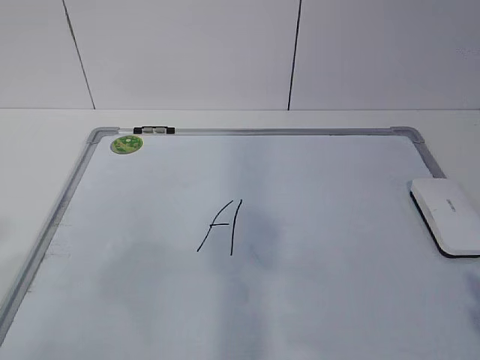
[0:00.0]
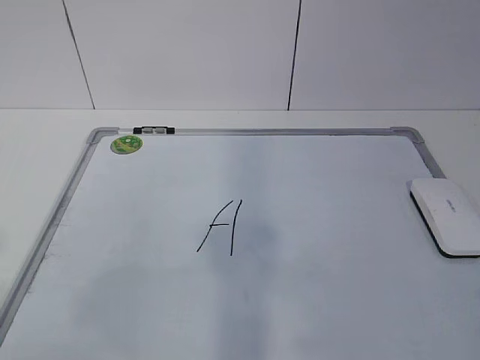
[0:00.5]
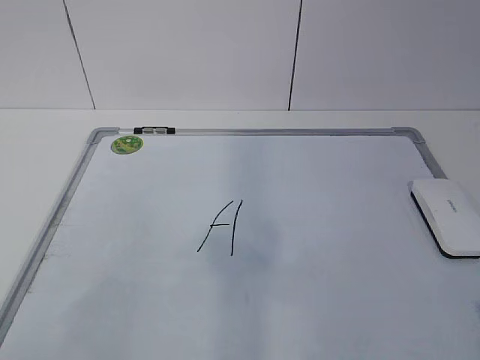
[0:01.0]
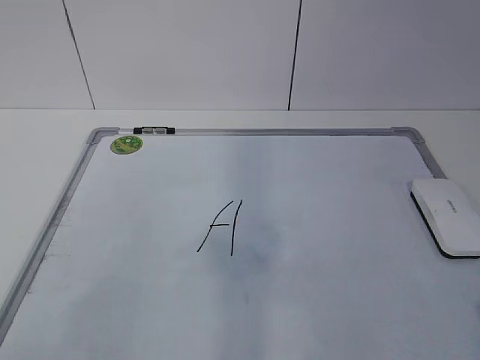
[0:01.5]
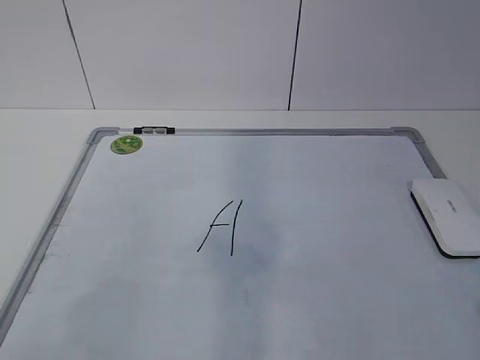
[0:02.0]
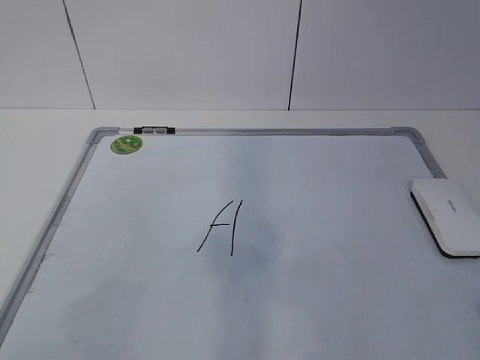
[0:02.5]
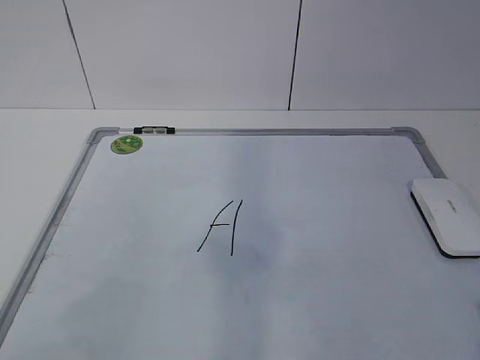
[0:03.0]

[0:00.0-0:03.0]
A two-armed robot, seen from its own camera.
Task of the whole recording: pick up the eraser on the blackboard and erase the letter "a".
0:01.5 to 0:03.0: Neither gripper changes place.

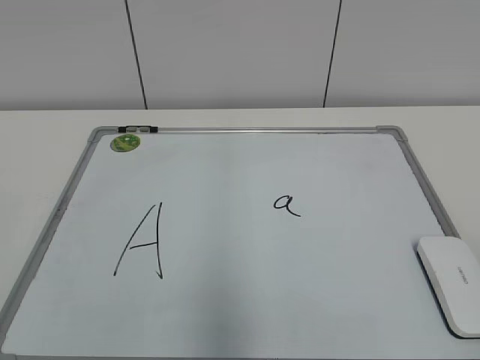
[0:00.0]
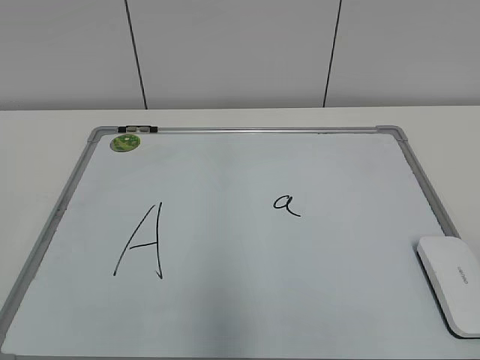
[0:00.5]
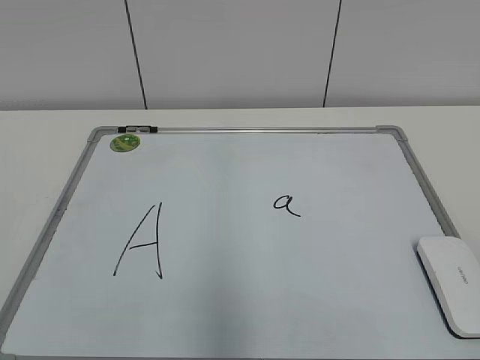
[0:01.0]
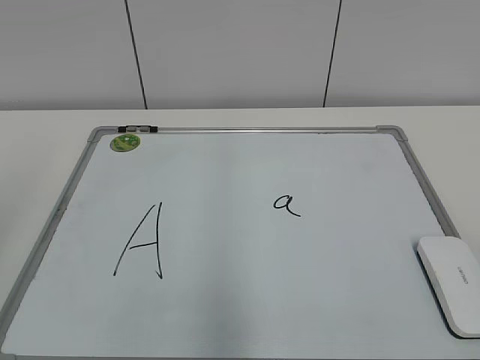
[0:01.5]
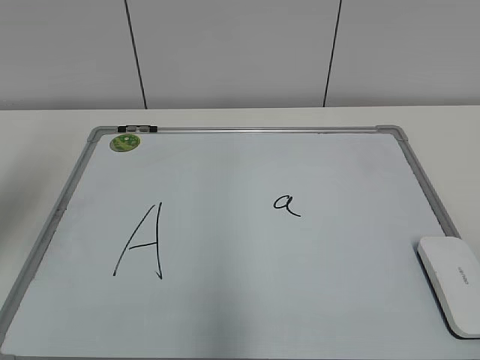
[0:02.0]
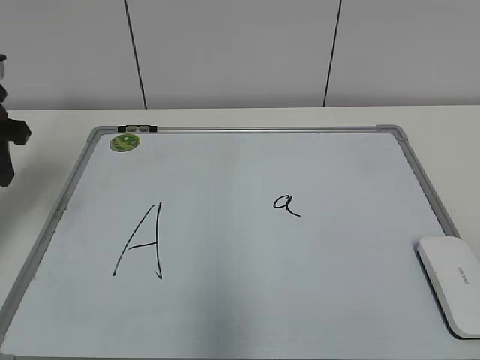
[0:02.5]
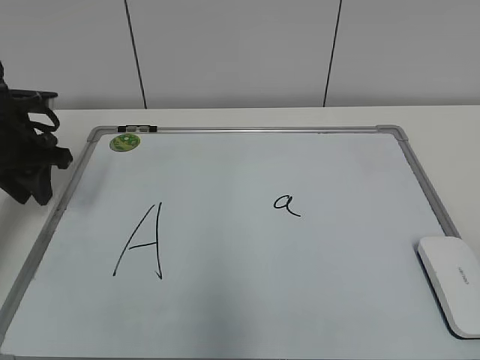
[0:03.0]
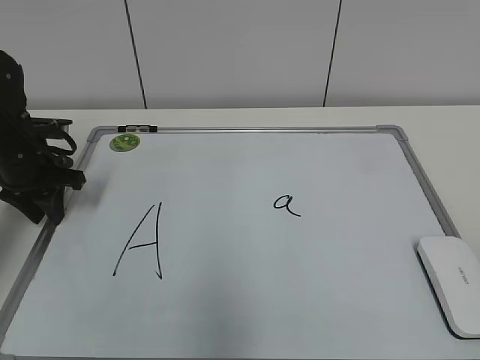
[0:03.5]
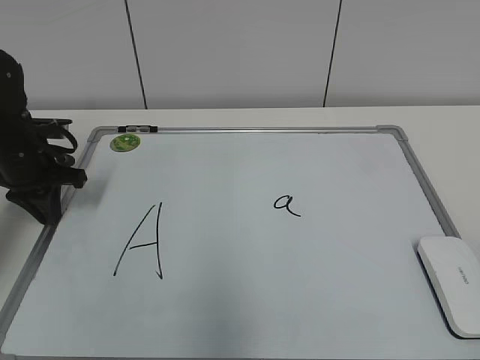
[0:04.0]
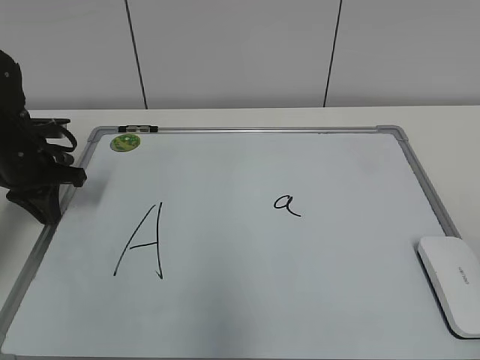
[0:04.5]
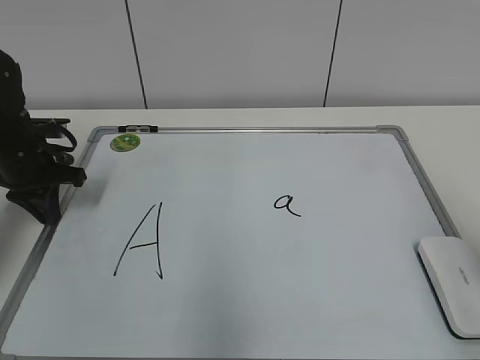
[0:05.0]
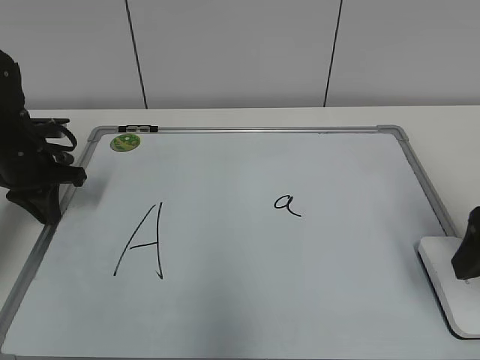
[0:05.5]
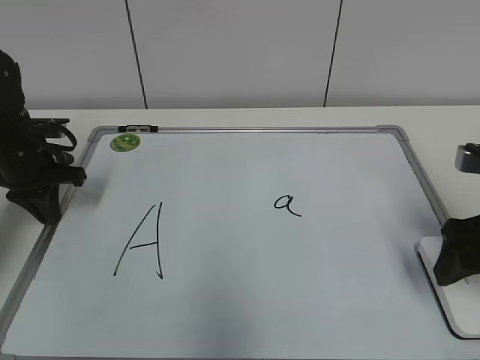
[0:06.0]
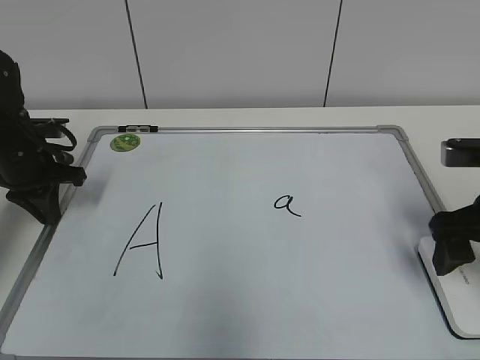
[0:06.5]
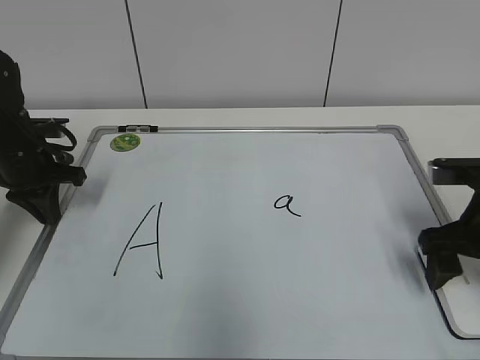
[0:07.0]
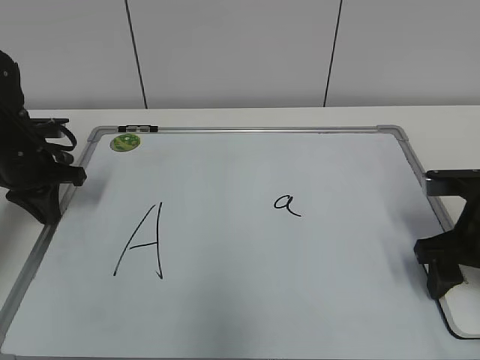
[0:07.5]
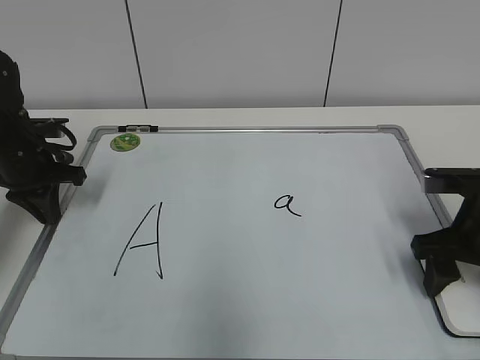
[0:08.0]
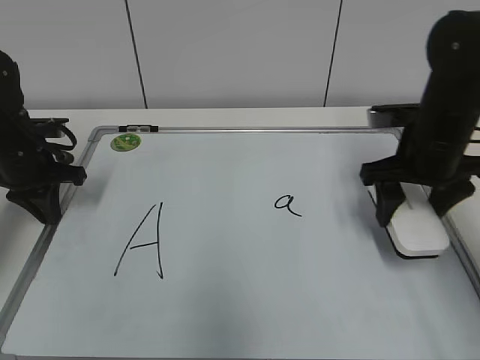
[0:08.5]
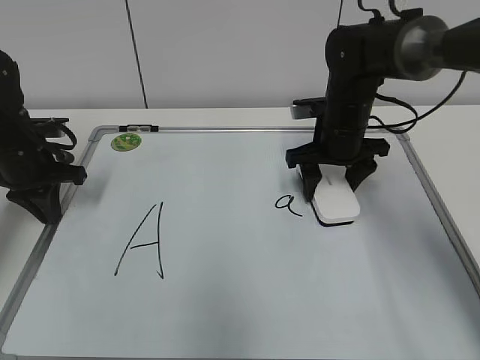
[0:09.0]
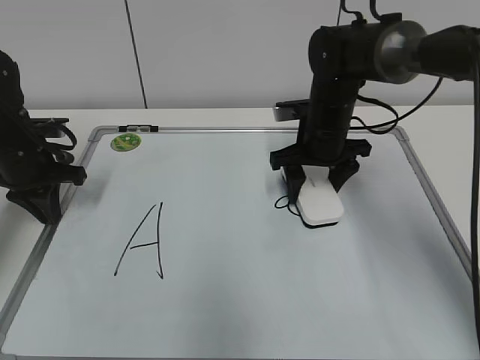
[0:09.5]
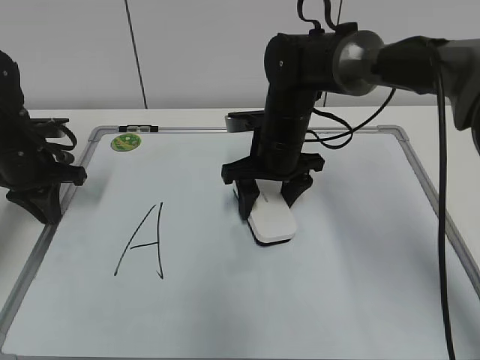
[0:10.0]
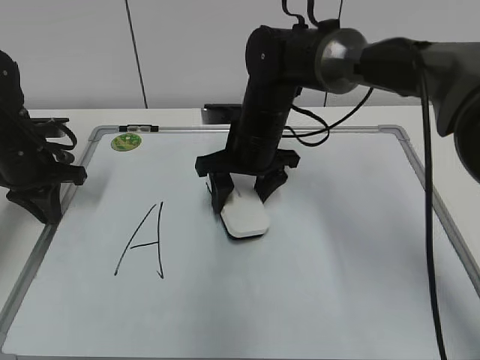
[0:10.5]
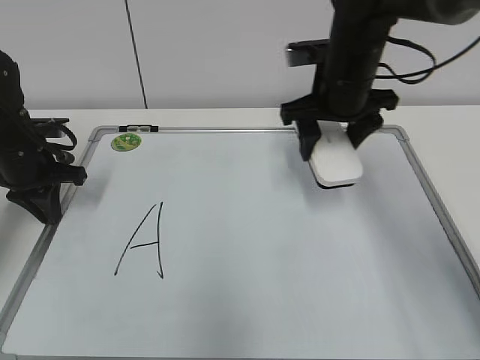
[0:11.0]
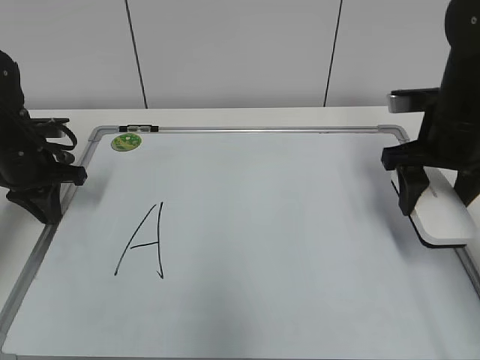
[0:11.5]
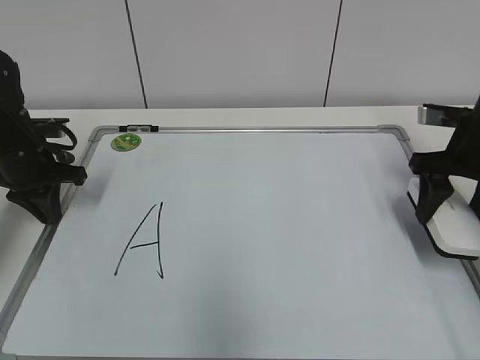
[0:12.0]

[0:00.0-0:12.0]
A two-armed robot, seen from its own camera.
Task of the whole recording: pick up the eraser on the blackboard and erase the letter "a".
Step, 0:00.0 to 0:04.5: Hold the drawing board steady with your left hand.
Step, 0:05.0 to 0:07.5: Grab the eraser with your right hand.
Step, 0:08.0 to 0:10.0: Erase the letter a with your right hand.
0:02.0 to 0:04.0: The left gripper heads downward and forward, covering roughly 20 cm.
0:04.0 to 0:06.0: The right gripper travels forward by approximately 25 cm, and opens.
0:06.0 to 0:08.0: The right gripper changes place by some 5 cm, and closes up.
0:08.0 to 0:10.0: The right gripper travels to the left and forward by some 25 cm.
0:10.0 to 0:12.0: The right gripper is displaced to the right by some 20 cm.

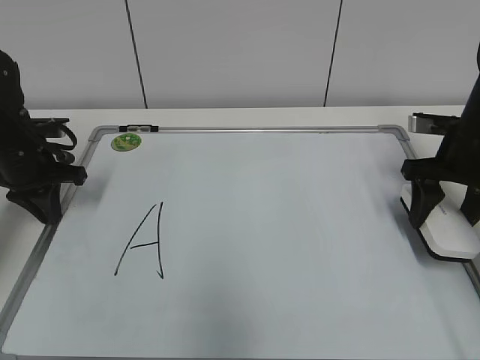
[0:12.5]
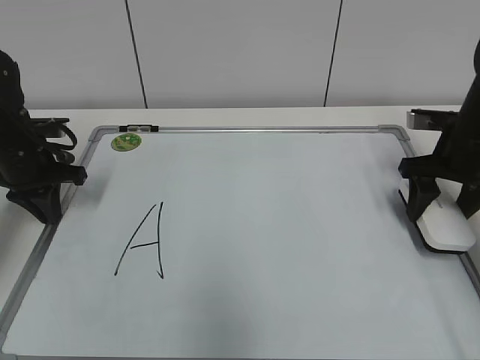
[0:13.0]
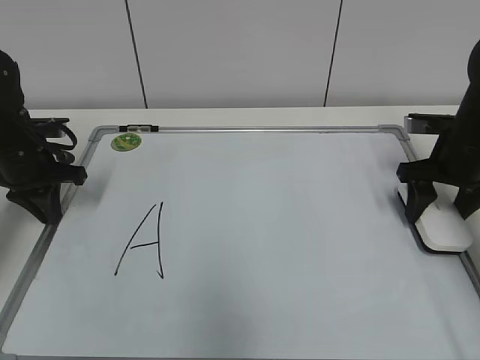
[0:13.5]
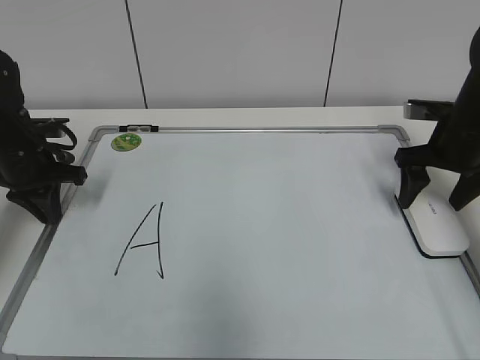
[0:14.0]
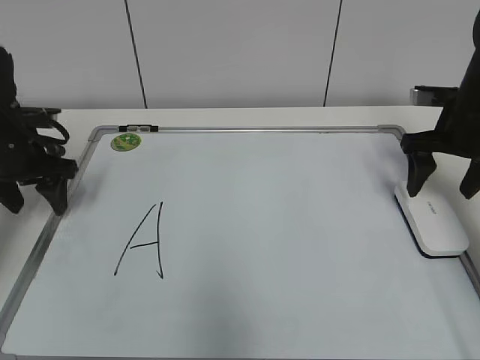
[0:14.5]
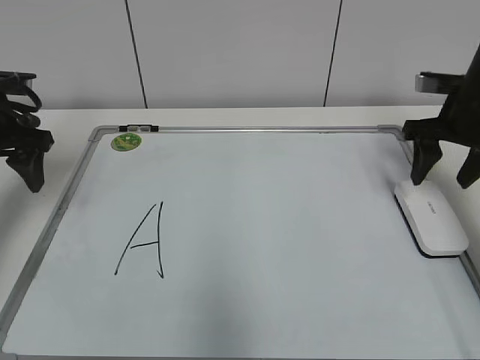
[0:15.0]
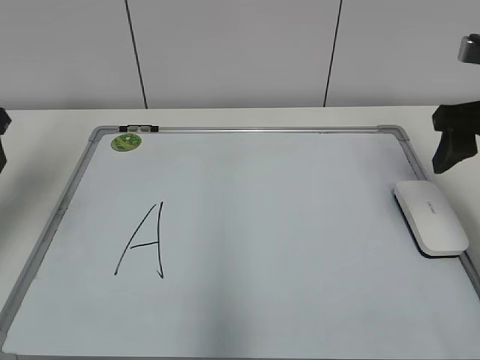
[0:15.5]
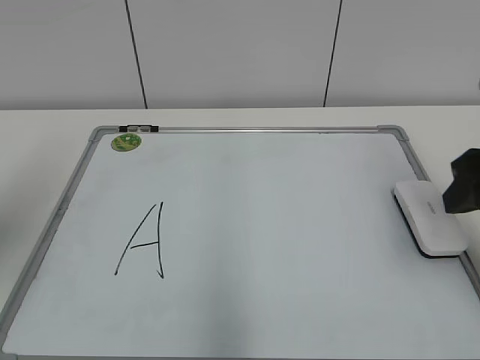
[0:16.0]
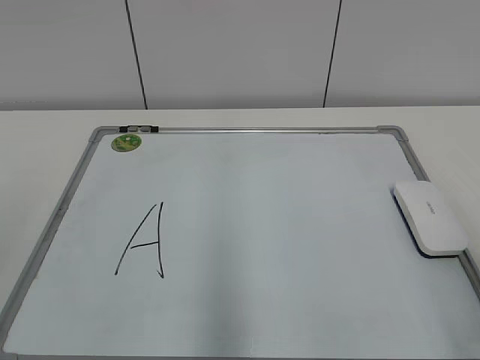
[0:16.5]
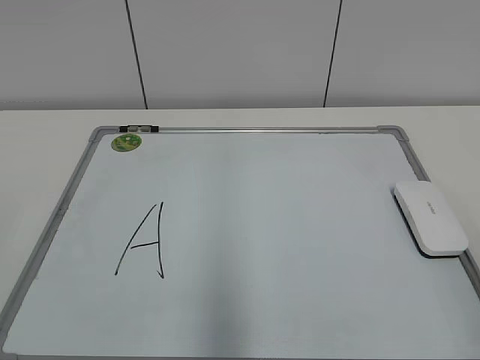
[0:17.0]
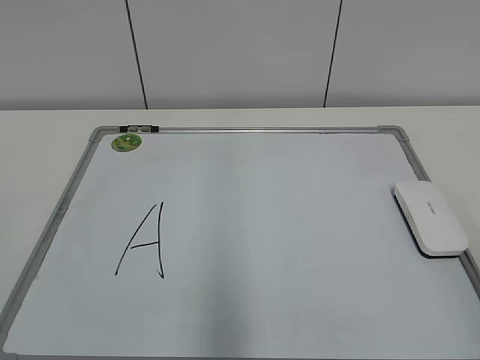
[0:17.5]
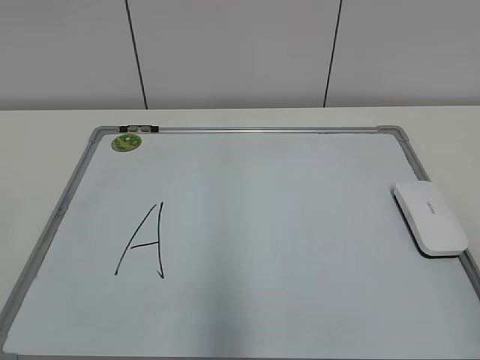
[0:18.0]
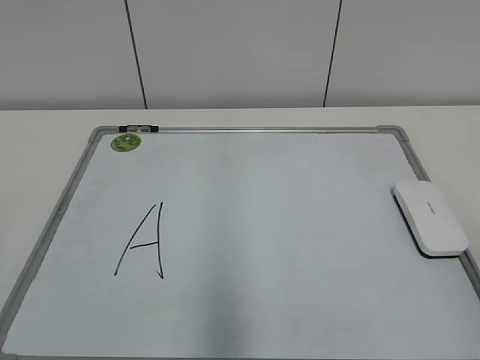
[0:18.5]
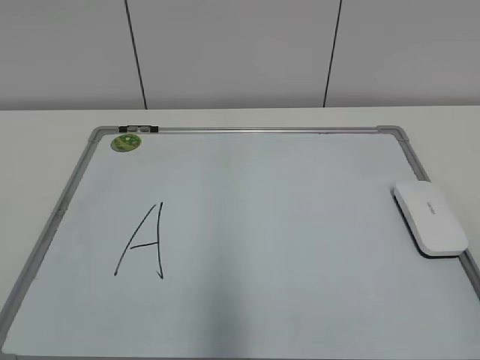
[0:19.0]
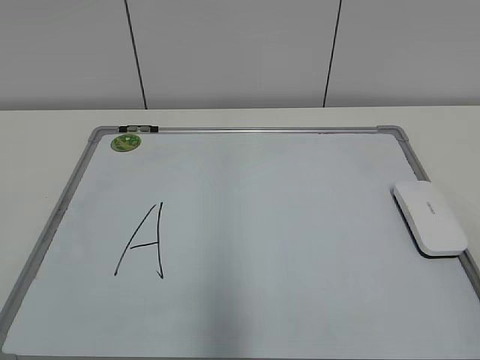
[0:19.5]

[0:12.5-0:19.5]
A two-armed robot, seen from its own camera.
Task of the whole recording: pick up the eraser on the blackboard and erase the letter "a".
0:12.5 to 0:14.5: The left gripper opens up. Meanwhile the right gripper opens.
0:14.5 to 0:16.0: Both grippers move backward and upward, about 20 cm. The right gripper closes its fingers.
0:16.0 to 0:17.5: The right gripper moves backward, some 20 cm.

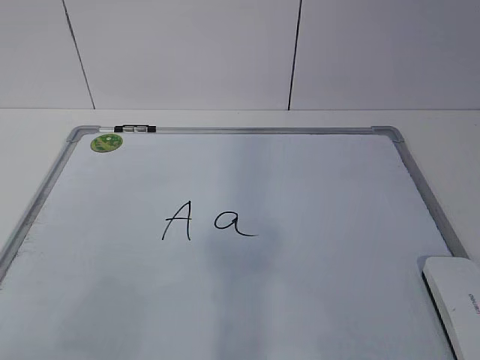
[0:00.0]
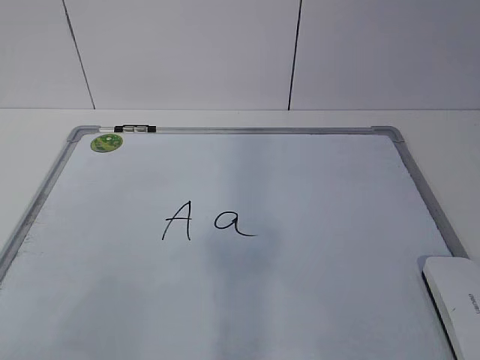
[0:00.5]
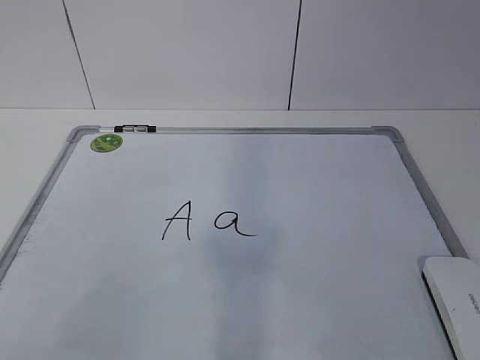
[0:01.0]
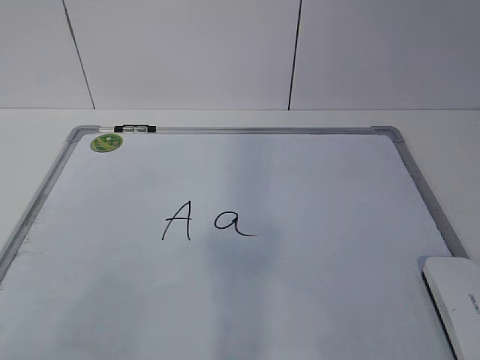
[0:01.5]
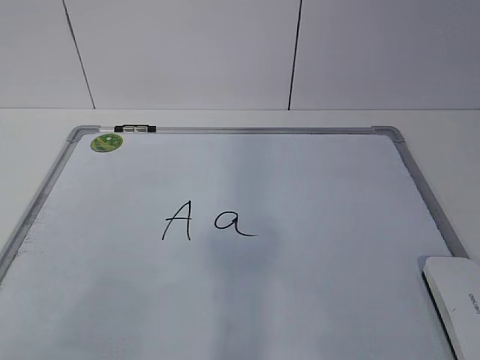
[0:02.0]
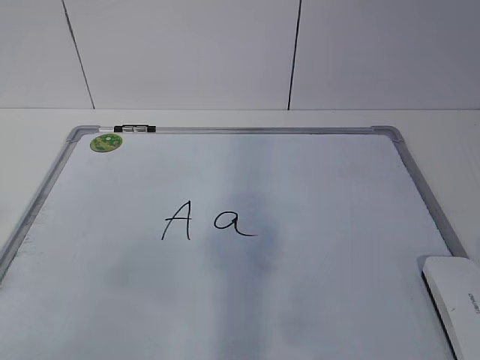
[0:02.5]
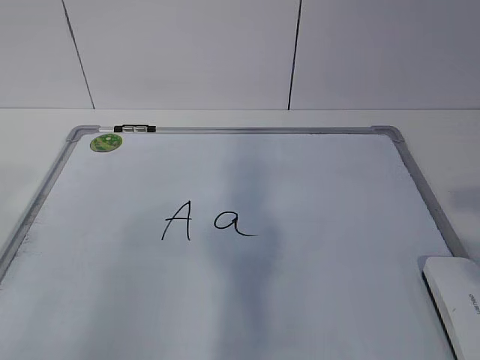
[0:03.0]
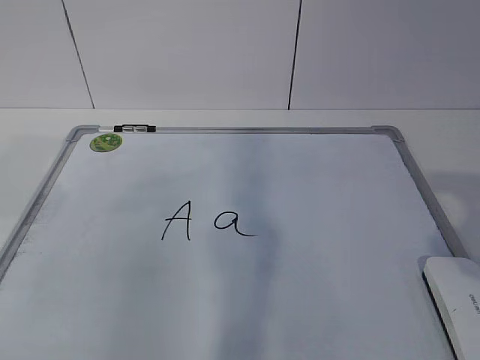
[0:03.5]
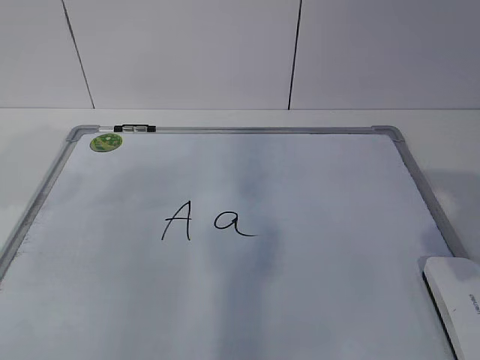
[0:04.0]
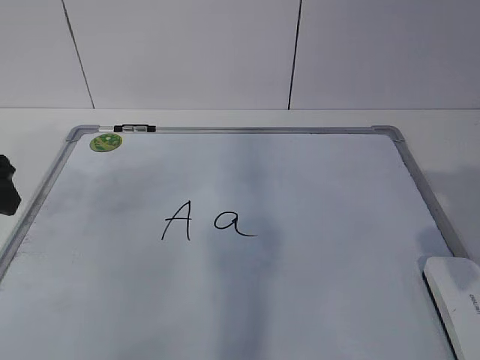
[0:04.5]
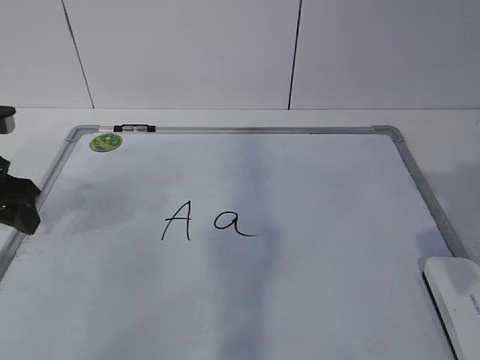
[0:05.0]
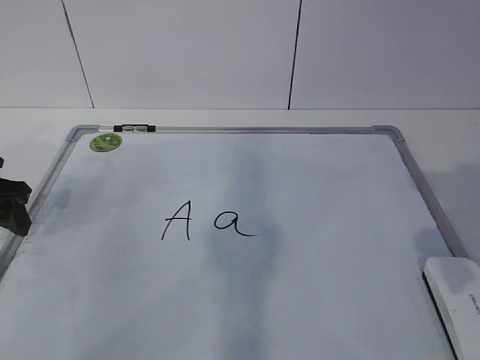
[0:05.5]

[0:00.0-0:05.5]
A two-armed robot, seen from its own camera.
Task of the whole recording: pick up the eraser on the blackboard and erase the letter "a".
0:03.5 to 0:05.5: The left gripper travels downward and forward by some 20 cm.
